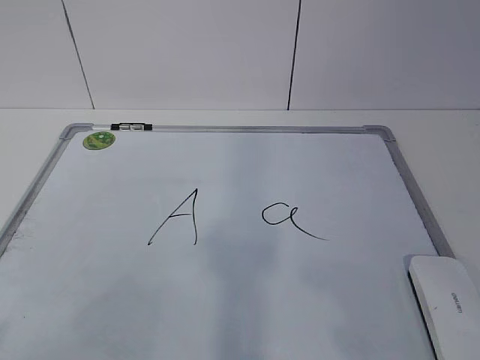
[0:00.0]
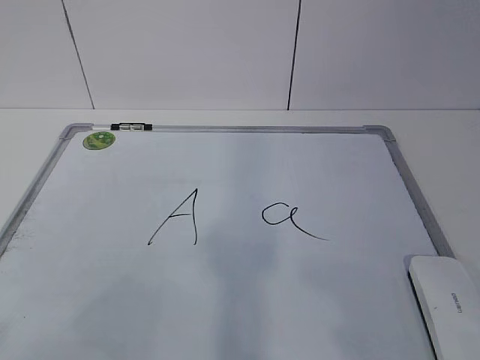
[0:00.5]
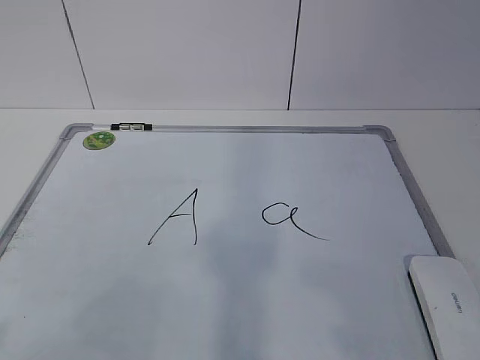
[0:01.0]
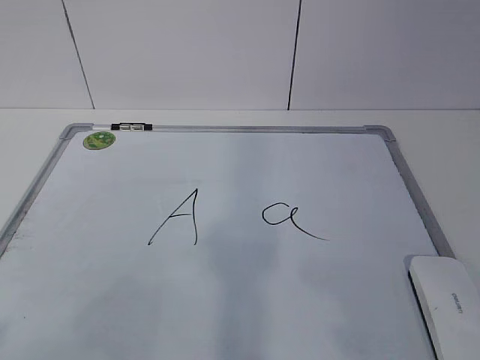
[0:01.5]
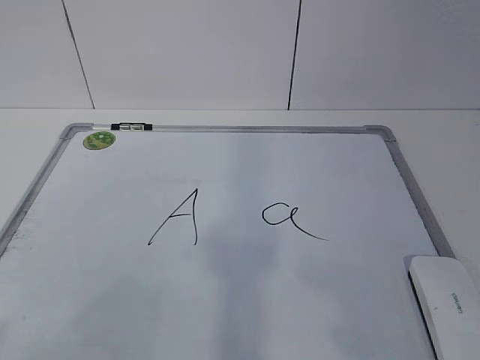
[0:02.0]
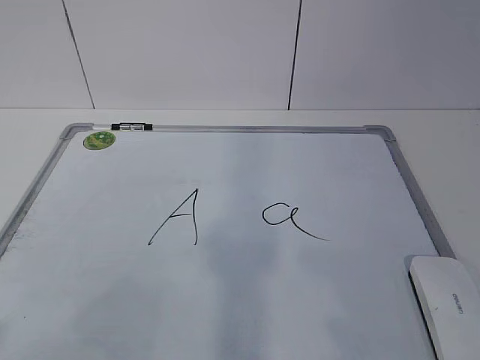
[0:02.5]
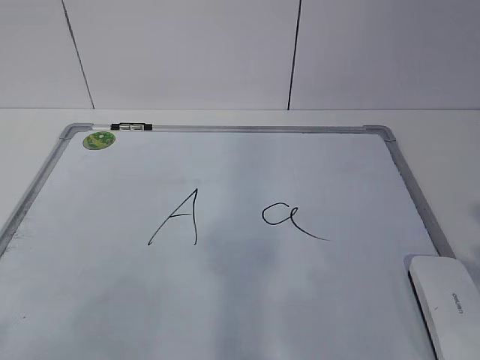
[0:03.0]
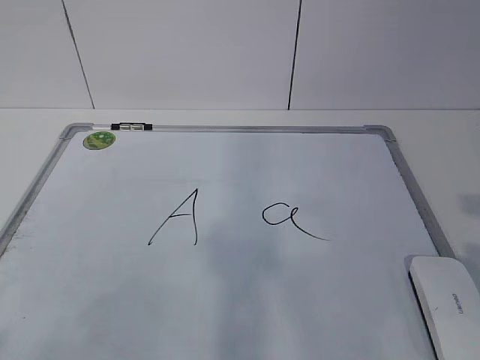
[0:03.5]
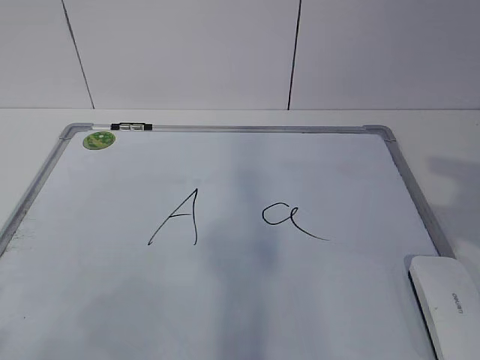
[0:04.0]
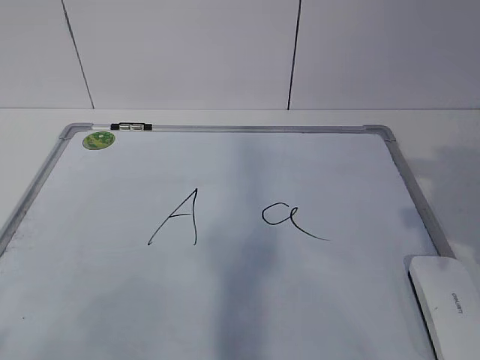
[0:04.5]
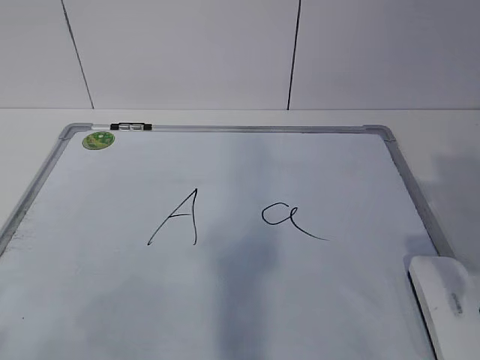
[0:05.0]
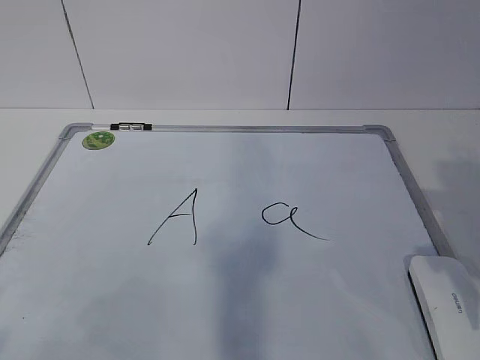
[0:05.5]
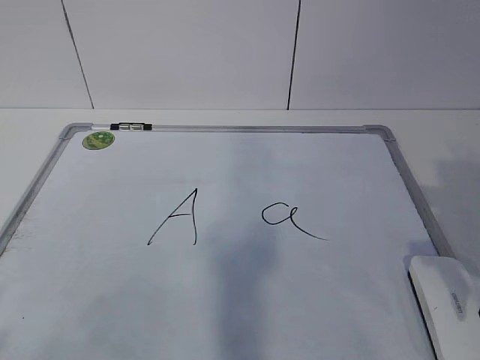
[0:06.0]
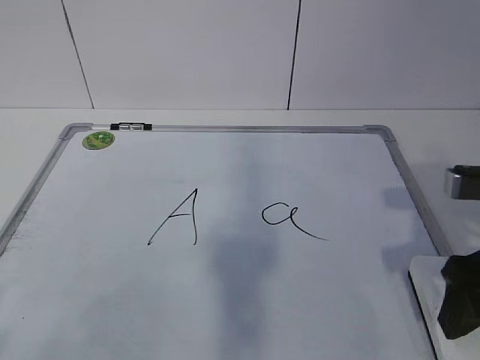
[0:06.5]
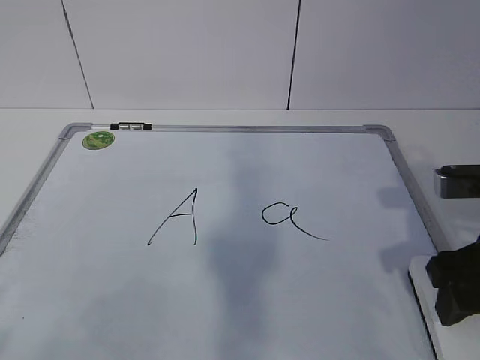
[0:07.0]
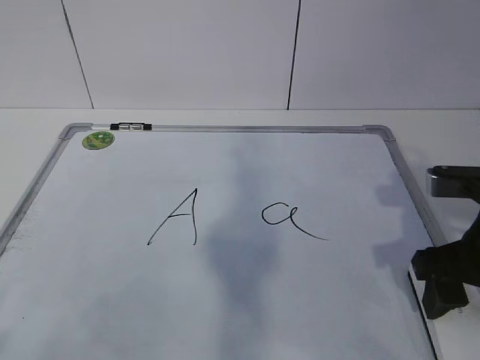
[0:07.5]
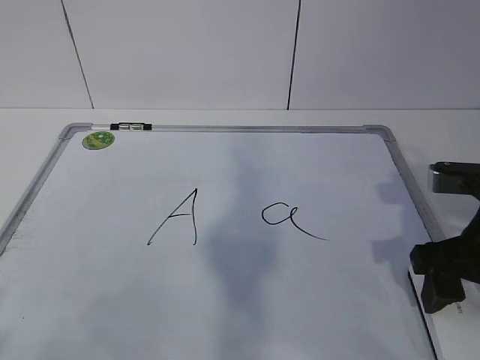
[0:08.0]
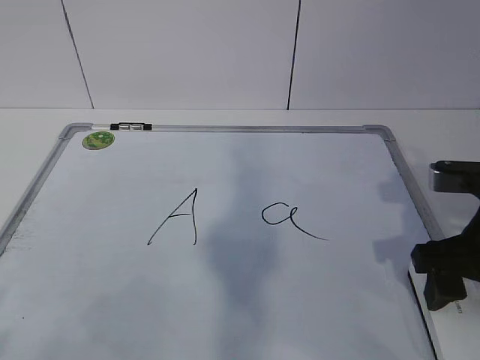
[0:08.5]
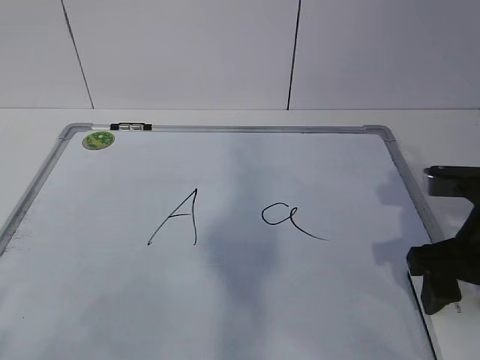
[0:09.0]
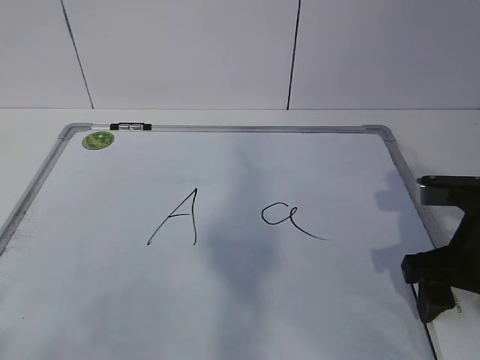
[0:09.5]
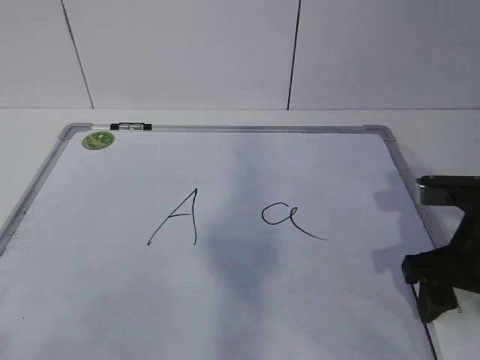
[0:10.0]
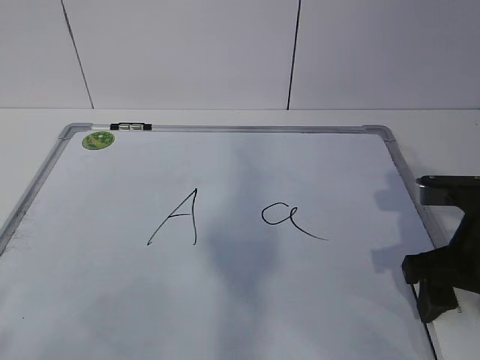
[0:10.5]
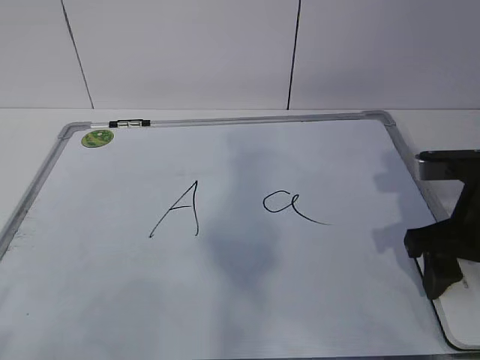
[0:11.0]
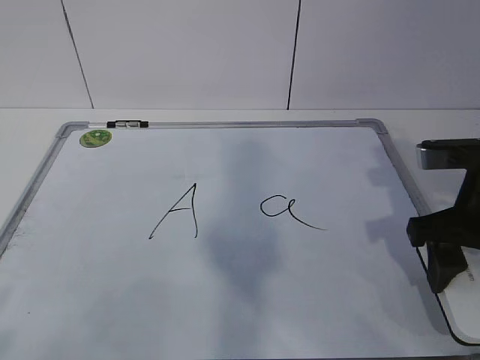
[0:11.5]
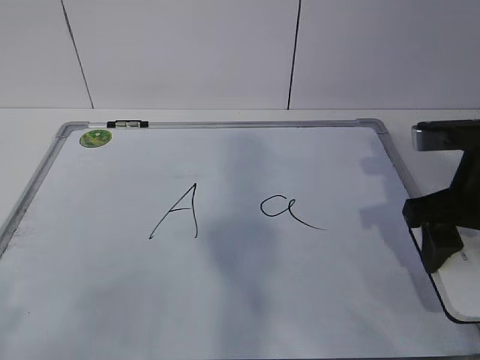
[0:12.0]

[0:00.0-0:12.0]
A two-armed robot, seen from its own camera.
Task of the whole recording: pick up the eraser on the blackboard and erase the letter "a".
Step, 0:00.0 to 0:09.0: Grab the eraser with your right hand.
0:04.0 to 0:06.0: The right gripper heads downward, covering roughly 5 cm, and opens its fingers.
0:06.0 to 0:08.0: The right gripper ends up roughly 5 cm from where it was, and closes.
0:08.0 to 0:10.0: The right gripper closes up.
0:10.0 to 0:12.0: The right gripper goes approximately 5 cm upward.

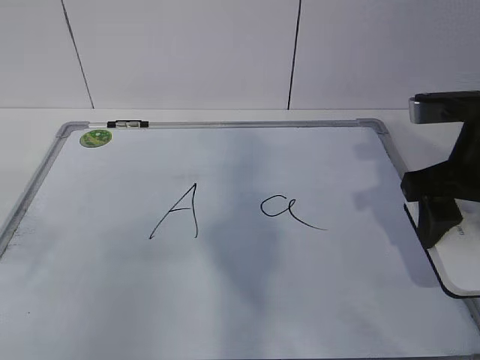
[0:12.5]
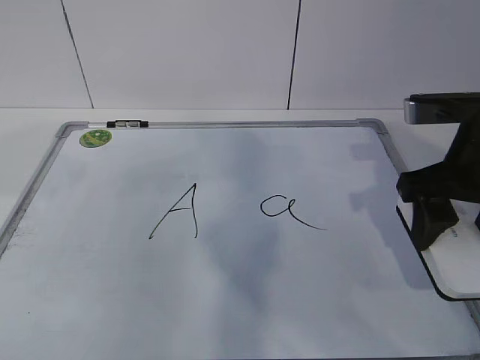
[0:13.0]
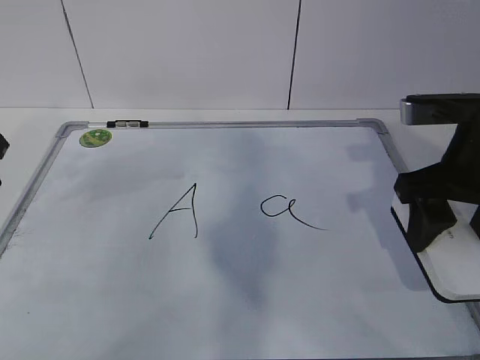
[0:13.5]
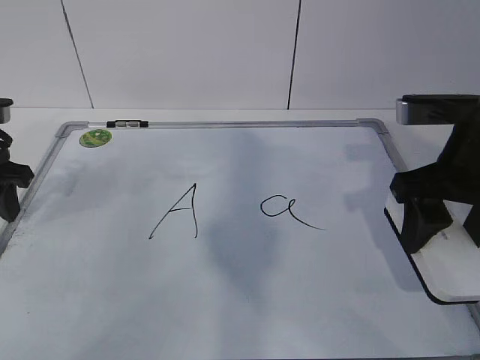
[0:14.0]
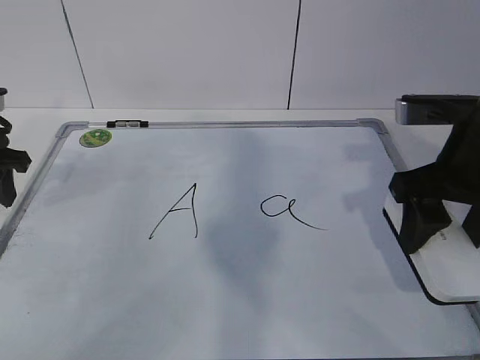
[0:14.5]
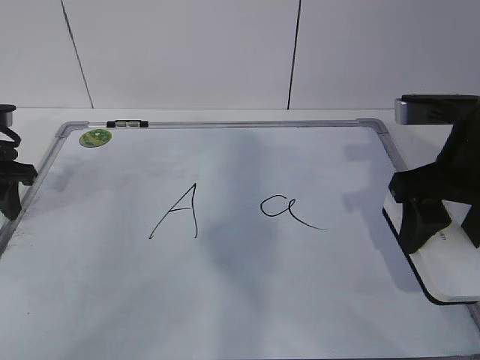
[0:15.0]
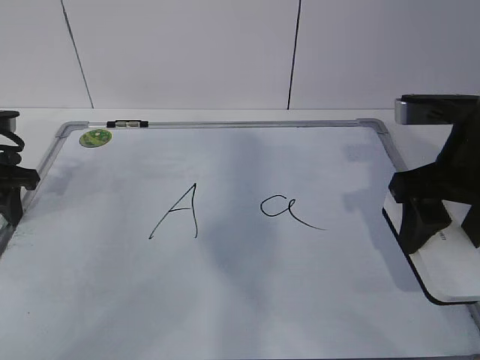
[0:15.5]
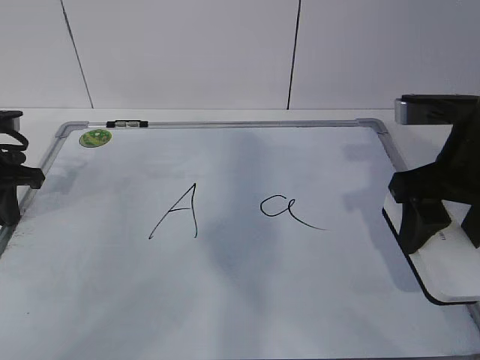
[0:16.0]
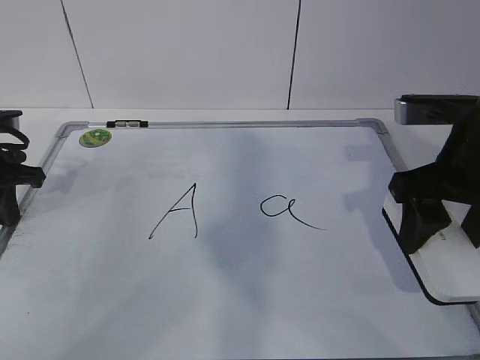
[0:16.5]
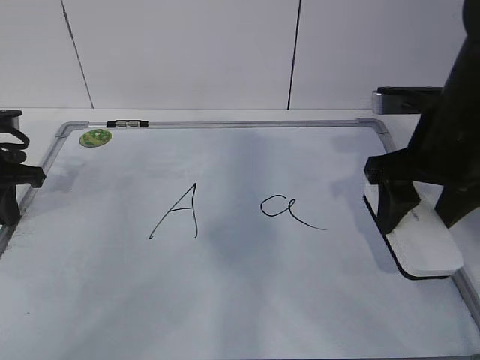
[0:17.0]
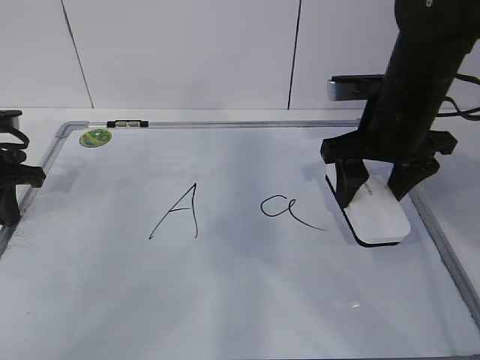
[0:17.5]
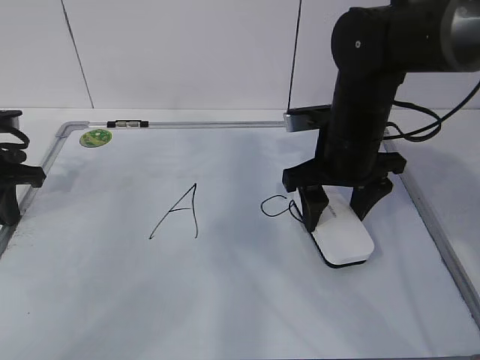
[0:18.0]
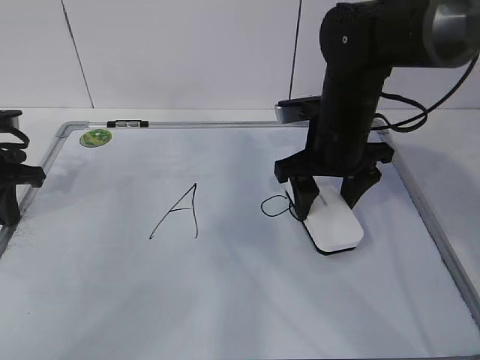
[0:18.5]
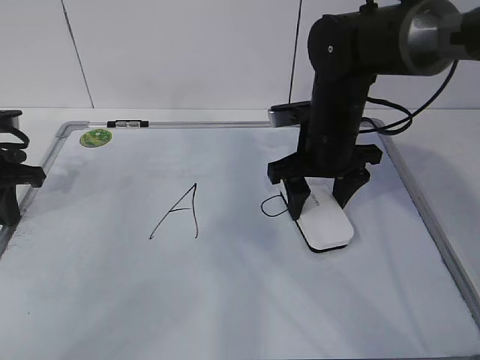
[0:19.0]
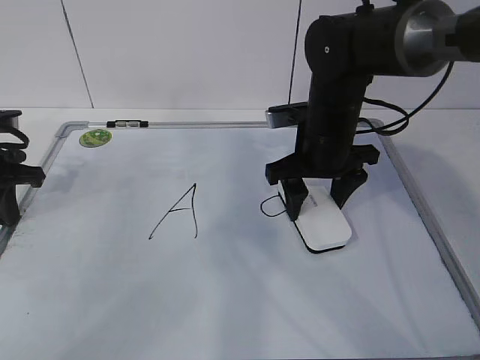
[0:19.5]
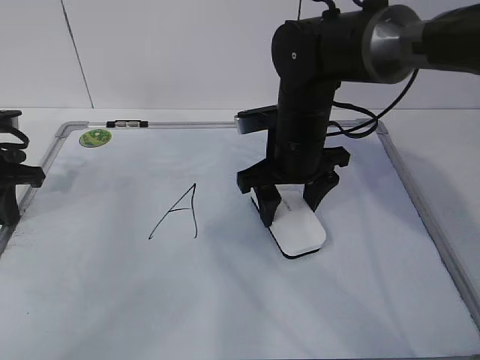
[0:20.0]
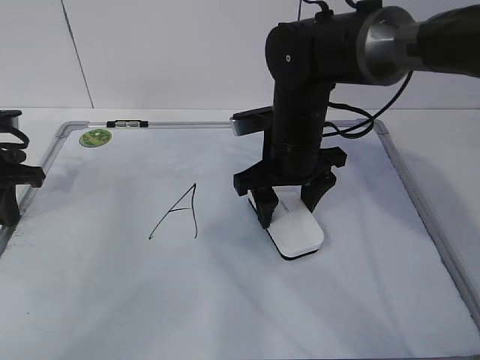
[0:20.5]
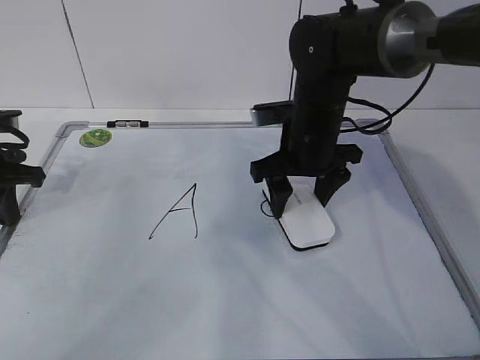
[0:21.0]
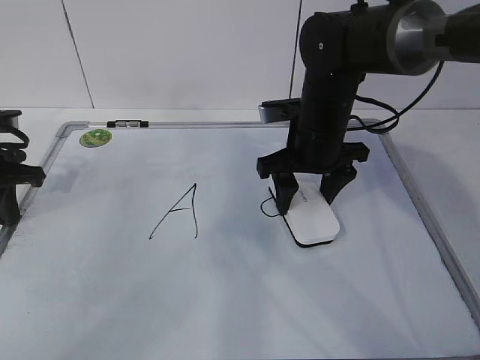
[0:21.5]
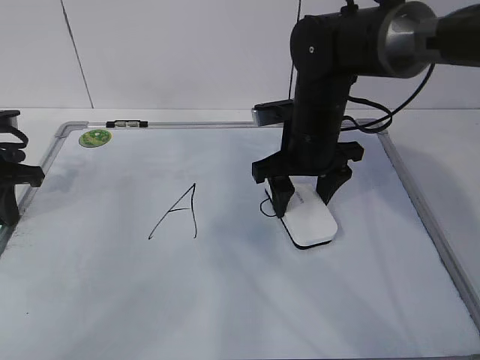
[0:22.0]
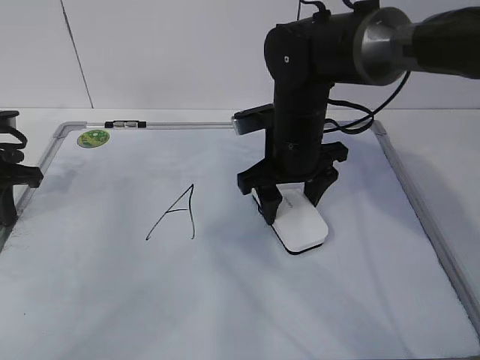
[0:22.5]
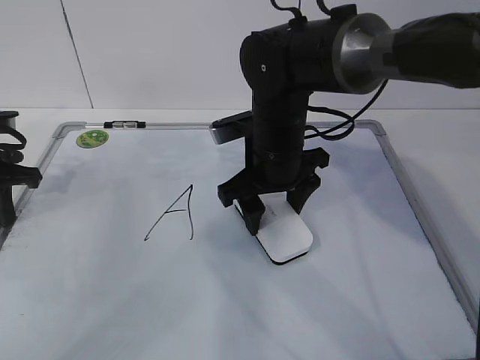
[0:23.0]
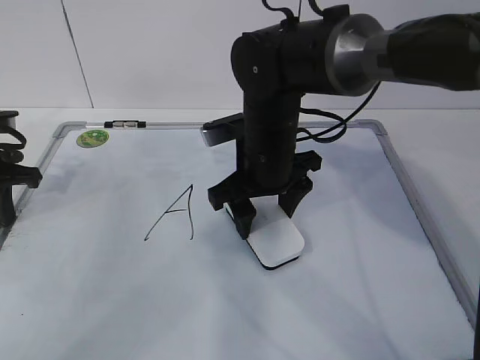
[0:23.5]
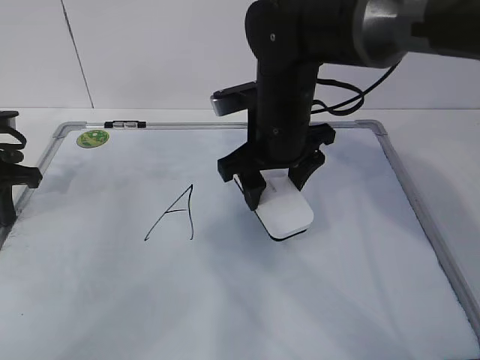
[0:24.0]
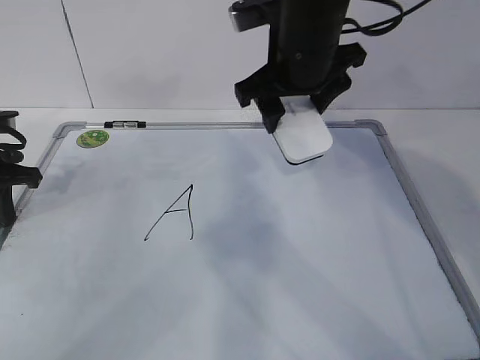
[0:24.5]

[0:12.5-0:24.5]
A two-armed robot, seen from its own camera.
Task of the whole recording: pick up the eraser on the blackboard and erase the letter "a".
Step, 0:13.5 to 0:19.5: Erase the letter a with your right hand.
0:12.5 to 0:14.5: The left gripper heads forward and downward, covering about 25 cm.
0:14.5 to 0:16.5: The left gripper closes its fingers.
0:16.5 to 0:18.5: The right gripper heads forward, to the left and downward, covering about 15 cm.
0:18.5 to 0:20.5: The right gripper shifts by approximately 5 cm.
0:20.5 to 0:22.5: The grippers stay close to where they were, moving slightly.
0:22.5 to 0:24.5: The right gripper moves upward, about 10 cm.

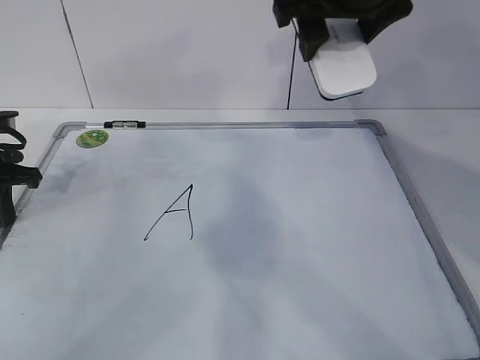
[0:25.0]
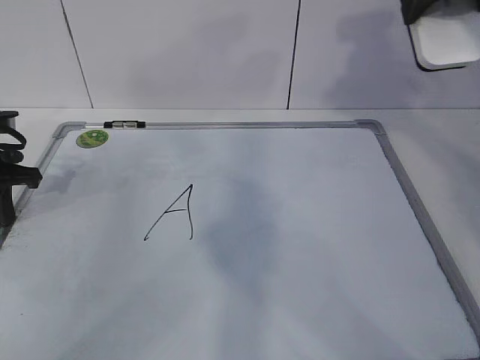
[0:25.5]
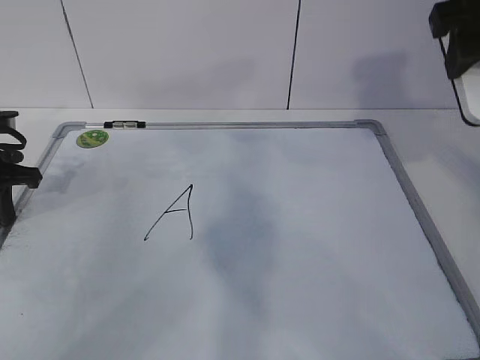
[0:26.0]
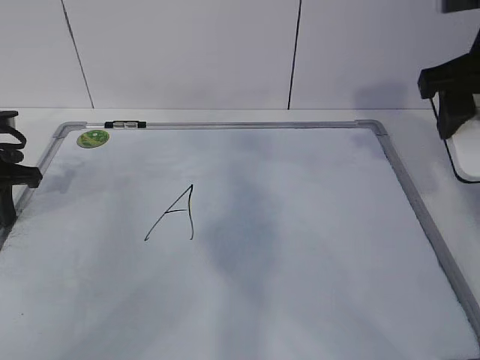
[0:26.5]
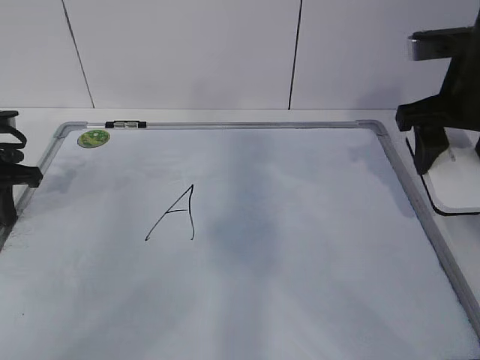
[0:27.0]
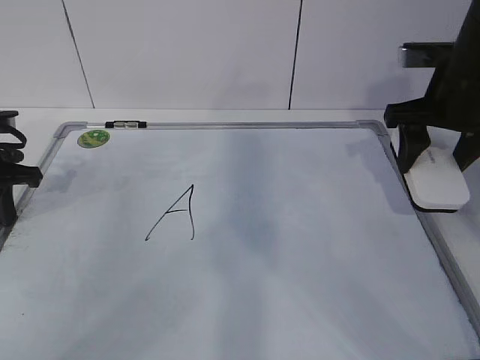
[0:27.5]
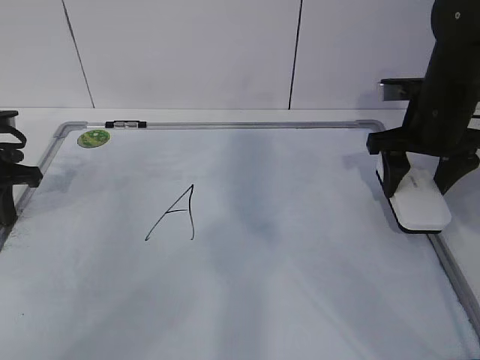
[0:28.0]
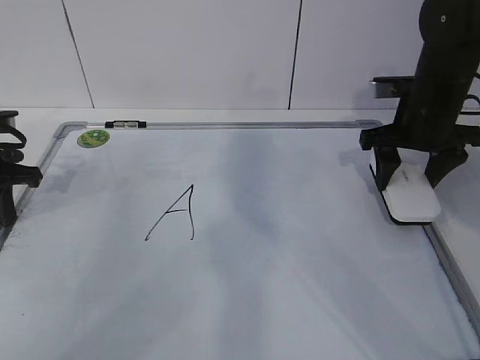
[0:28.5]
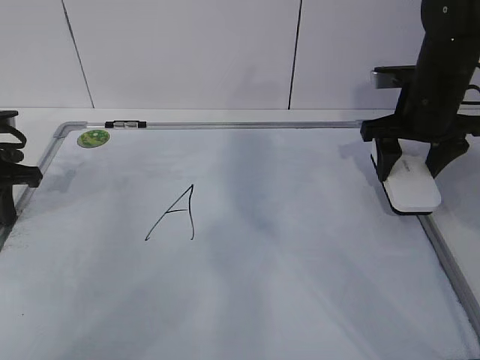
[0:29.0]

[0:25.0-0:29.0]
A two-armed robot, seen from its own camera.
Task of the whole recording: pick up the eraser on the blackboard and erase the letter "a".
Step, 0:25.0 to 0:28.0: Put down the eraser with your right hand.
0:25.0 to 0:27.0: The right gripper goes about 15 cm to the right and downward.
0:27.0 to 0:29.0: The right gripper is displaced forward and downward by roughly 10 cm.
